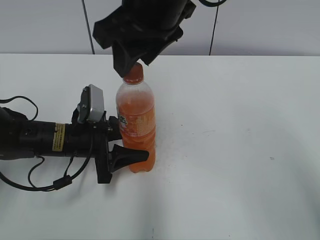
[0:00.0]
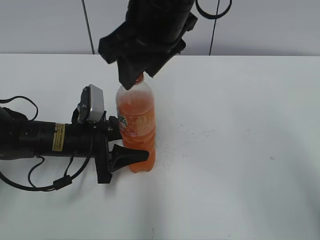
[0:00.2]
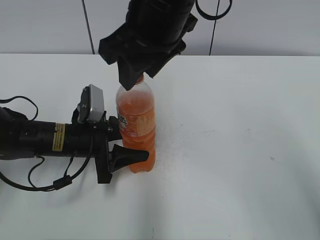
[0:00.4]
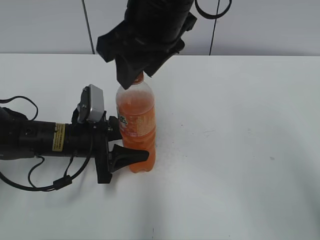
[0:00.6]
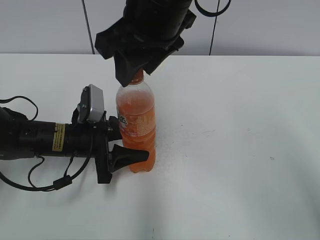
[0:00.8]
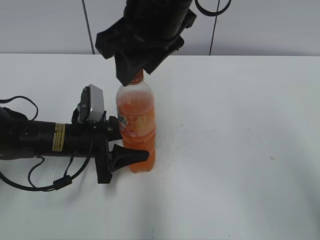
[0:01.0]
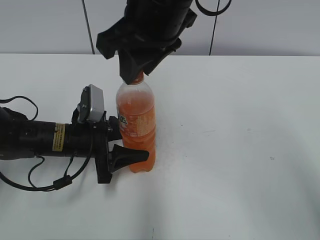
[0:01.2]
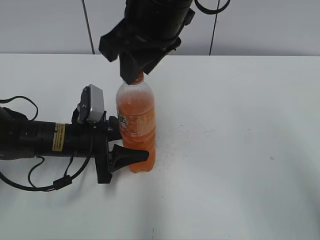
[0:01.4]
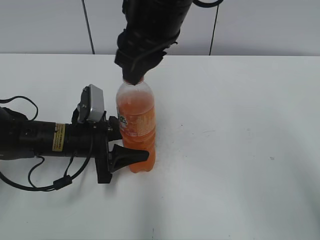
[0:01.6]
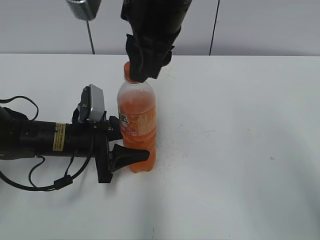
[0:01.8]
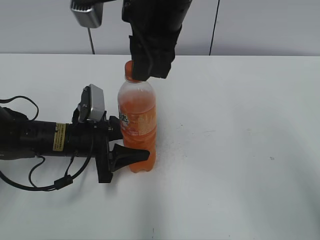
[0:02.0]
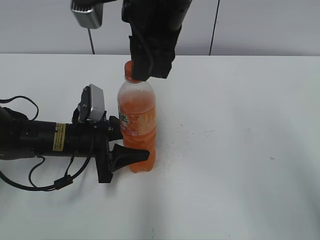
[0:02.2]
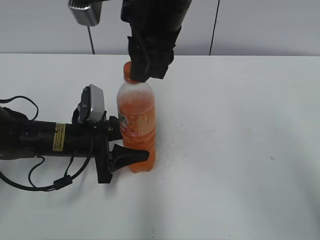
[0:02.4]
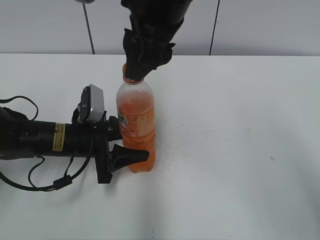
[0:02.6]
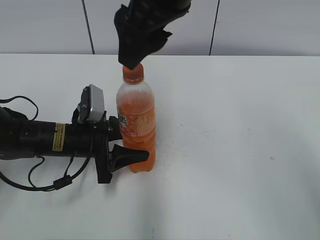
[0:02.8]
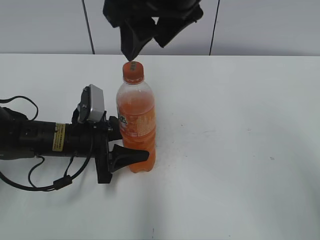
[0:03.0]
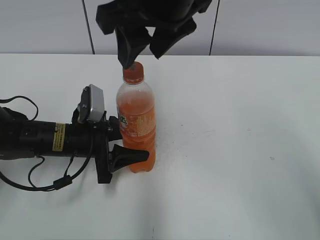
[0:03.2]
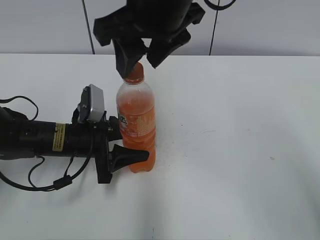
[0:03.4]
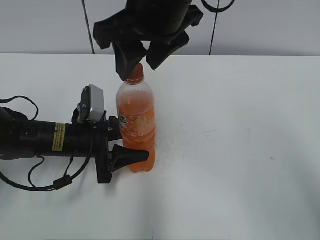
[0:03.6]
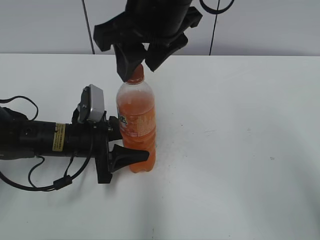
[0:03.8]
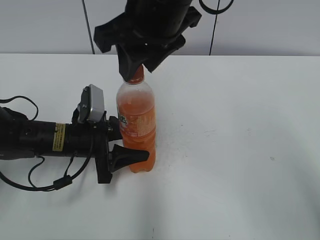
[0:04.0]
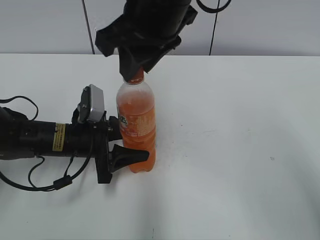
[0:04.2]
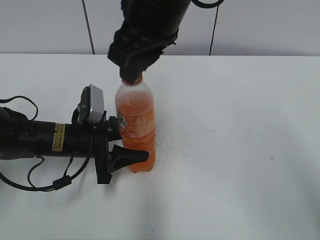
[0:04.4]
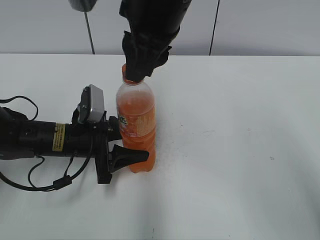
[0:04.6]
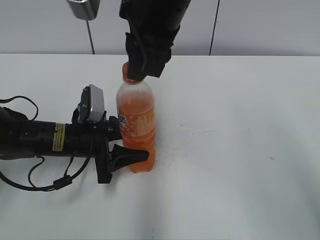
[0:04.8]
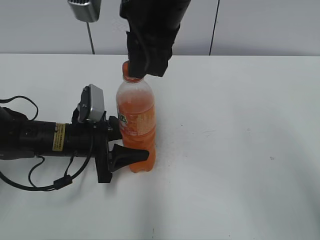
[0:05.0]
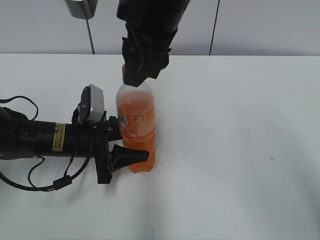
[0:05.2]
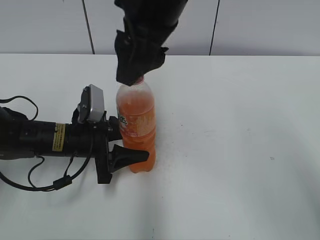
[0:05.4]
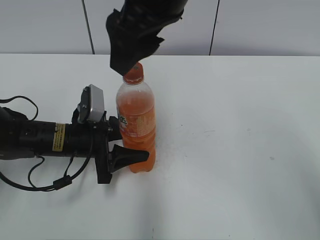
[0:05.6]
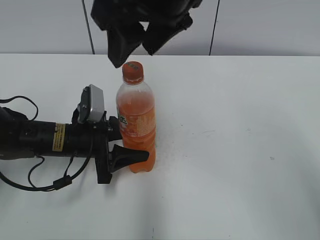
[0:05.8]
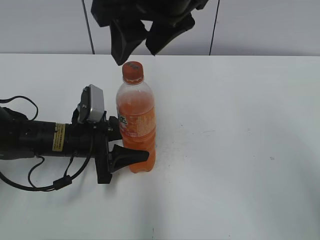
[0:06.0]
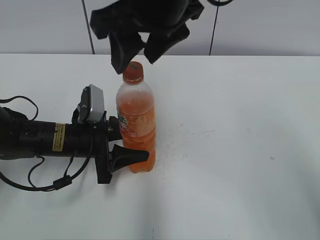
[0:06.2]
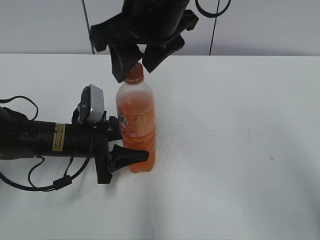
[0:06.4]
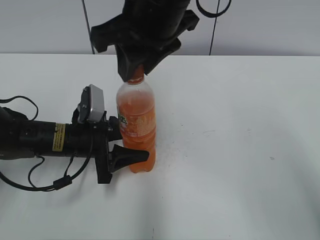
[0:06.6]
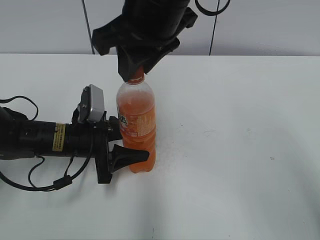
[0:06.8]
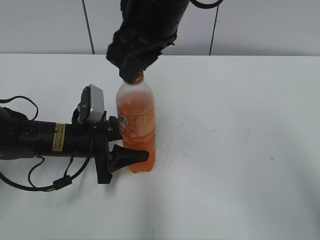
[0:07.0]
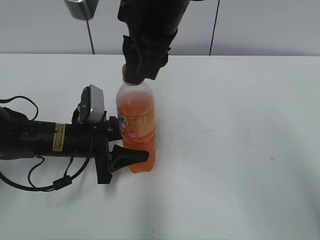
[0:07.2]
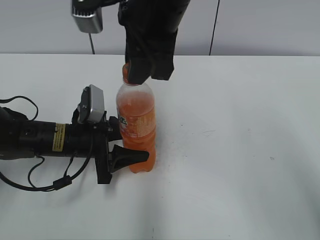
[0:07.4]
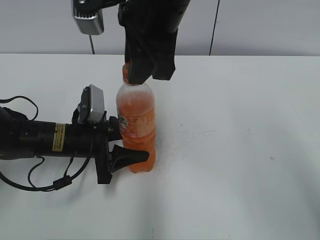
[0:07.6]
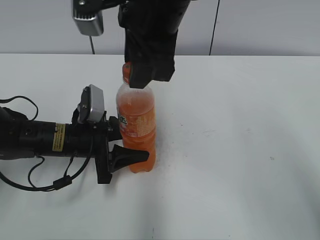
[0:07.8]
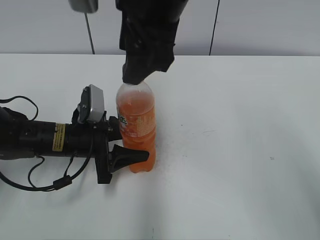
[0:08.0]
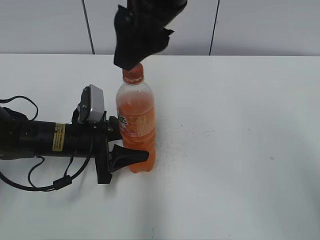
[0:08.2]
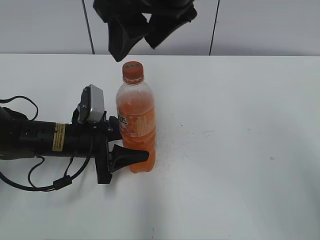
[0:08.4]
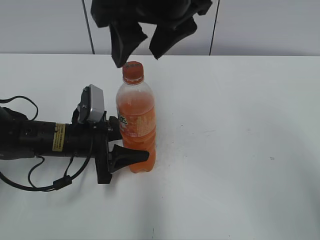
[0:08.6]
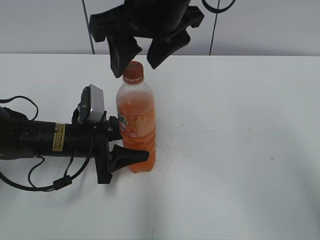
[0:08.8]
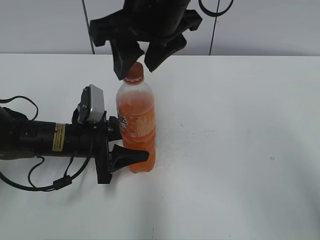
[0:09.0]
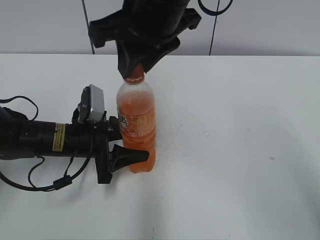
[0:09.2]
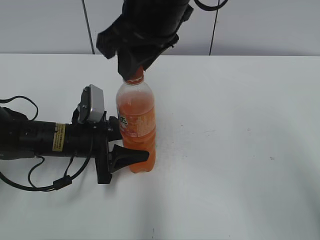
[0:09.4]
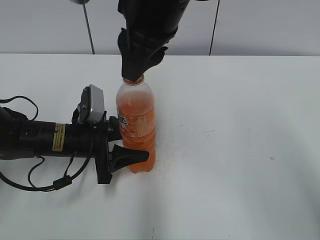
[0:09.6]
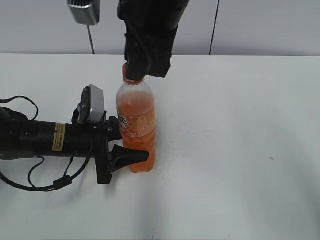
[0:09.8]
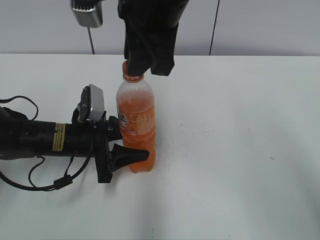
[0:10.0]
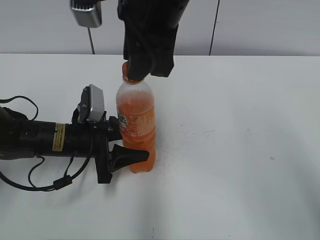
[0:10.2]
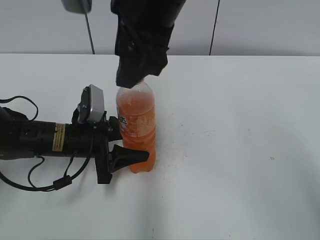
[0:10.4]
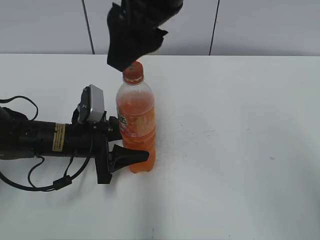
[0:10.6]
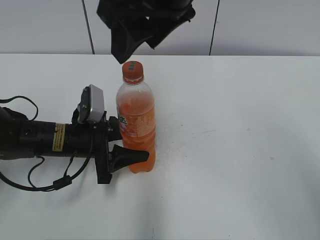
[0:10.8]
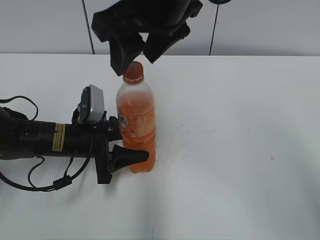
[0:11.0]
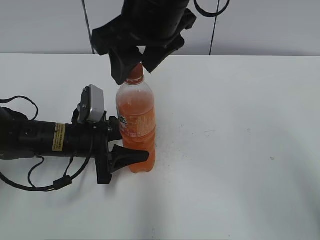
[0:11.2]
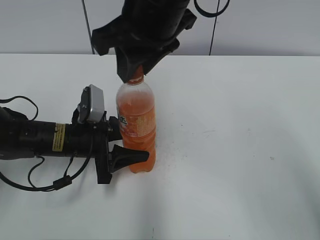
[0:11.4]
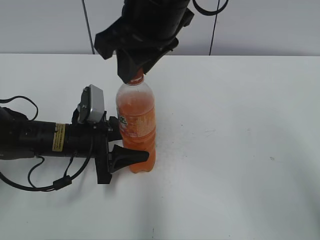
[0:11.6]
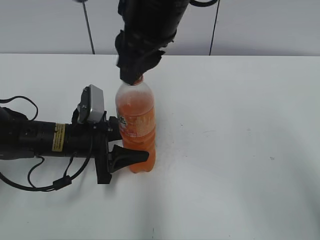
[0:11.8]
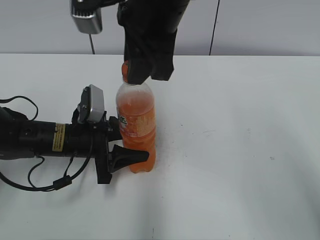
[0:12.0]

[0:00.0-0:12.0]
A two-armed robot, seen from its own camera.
0:00.0 to 0:01.6: The right gripper closes.
0:01.6 to 0:03.0: The right gripper opens its fingers.
0:03.0 to 0:04.4: The right gripper closes up.
0:04.4 to 0:06.0: The right gripper opens.
0:06.0 to 0:07.6: The right gripper closes up.
0:07.6 to 0:09.0: The right gripper opens.
0:09.0 to 0:10.4: The right gripper closes, then reopens.
0:10.4 to 0:12.0: The right gripper closes.

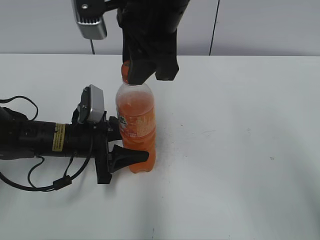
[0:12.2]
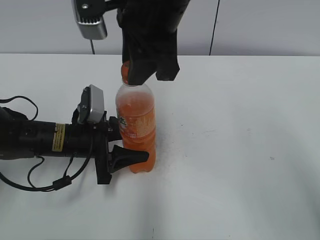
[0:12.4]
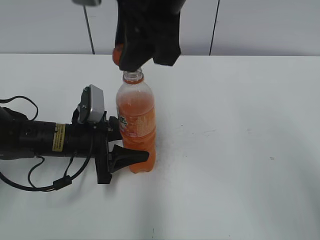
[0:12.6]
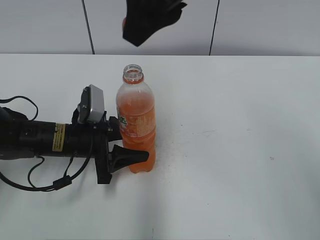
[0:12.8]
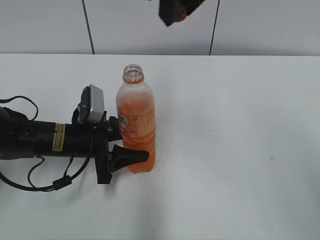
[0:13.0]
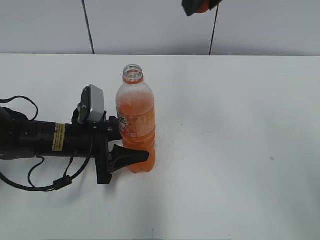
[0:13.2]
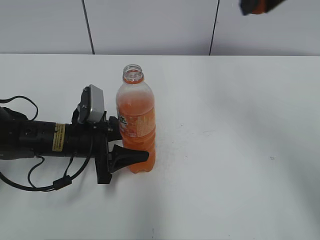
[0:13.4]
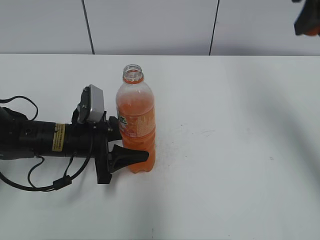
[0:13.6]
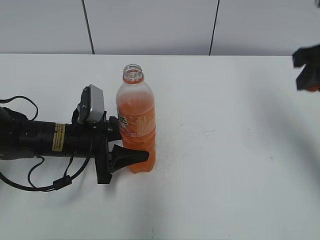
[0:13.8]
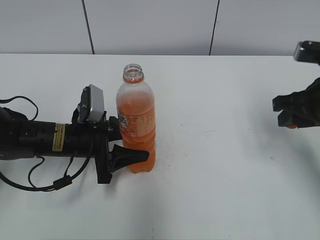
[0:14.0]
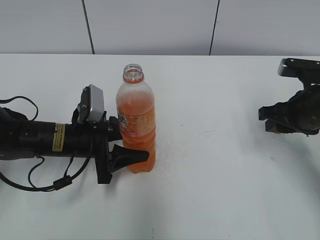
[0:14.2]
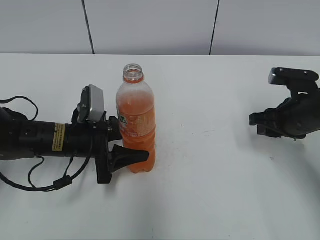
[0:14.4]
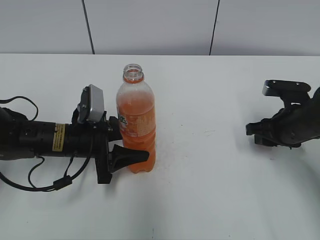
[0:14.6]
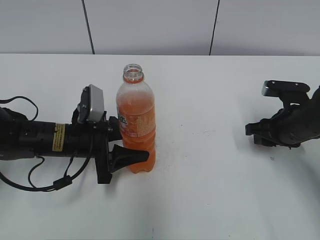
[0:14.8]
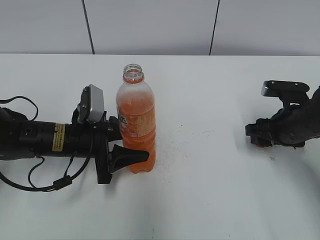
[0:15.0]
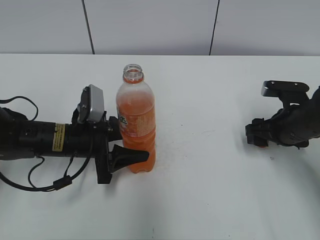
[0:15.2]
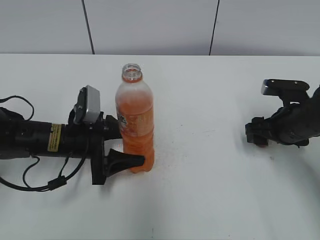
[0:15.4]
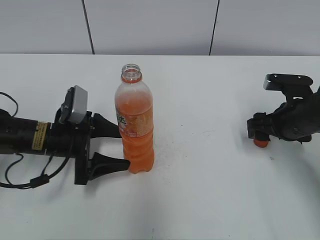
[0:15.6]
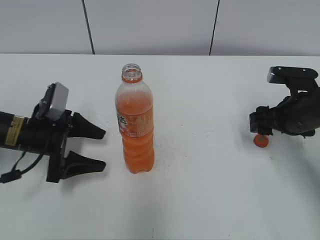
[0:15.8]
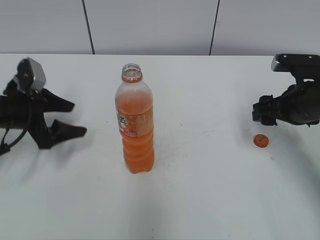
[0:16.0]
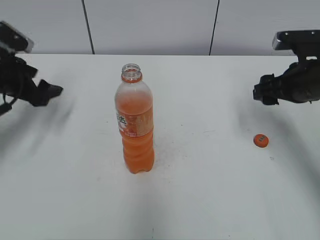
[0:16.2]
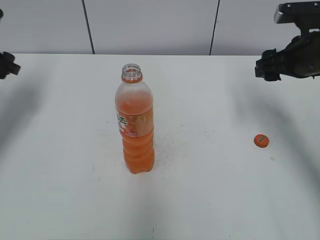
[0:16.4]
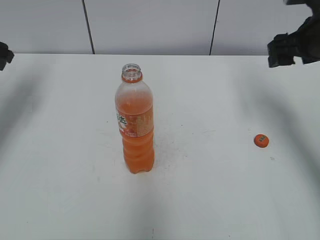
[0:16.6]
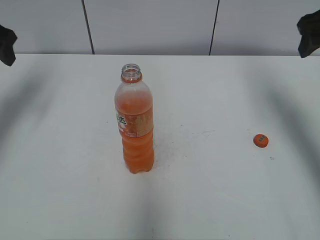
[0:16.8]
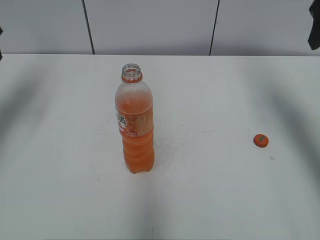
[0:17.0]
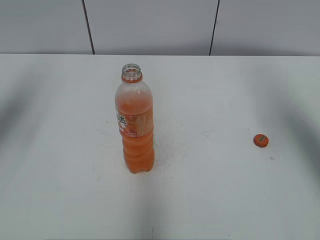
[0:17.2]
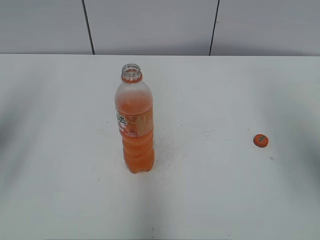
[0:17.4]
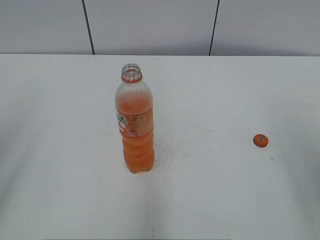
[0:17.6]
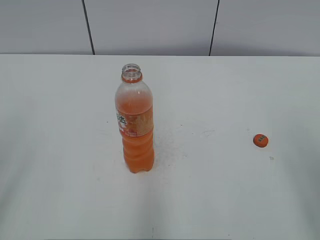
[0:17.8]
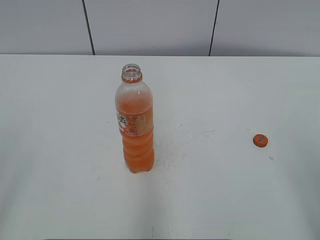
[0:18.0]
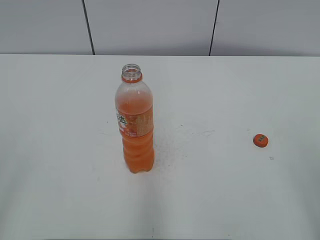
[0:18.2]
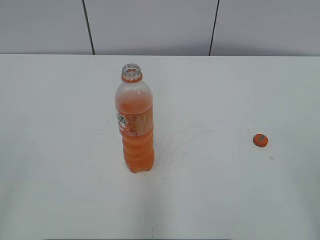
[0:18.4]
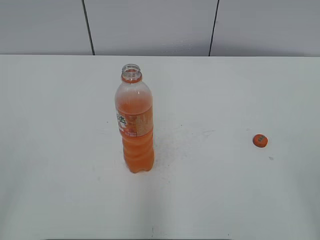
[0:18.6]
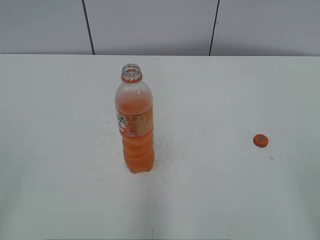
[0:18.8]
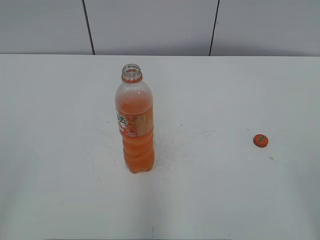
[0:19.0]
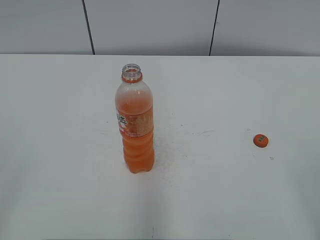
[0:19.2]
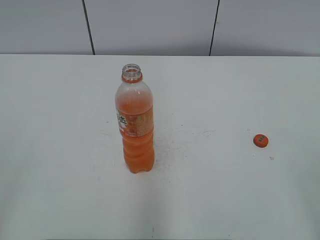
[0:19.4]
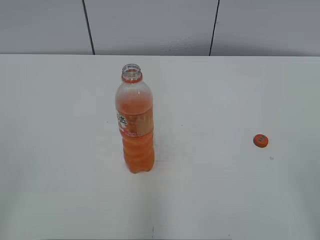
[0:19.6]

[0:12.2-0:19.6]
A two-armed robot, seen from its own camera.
Step, 0:12.8 to 0:15.2: Place the bottle cap on the right.
0:12.2 to 0:13.6: The right gripper heads to the right, covering approximately 20 cm.
0:13.6 to 0:15.2: The right gripper travels downward by roughly 25 cm, and opens up.
0:15.2 to 0:16.6: The left gripper moves to the left, upward and forward, approximately 25 cm, and opens up; the right gripper shifts some 15 cm upward.
0:16.6 to 0:18.2: The grippers both shift backward by about 35 cm.

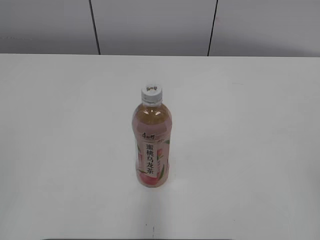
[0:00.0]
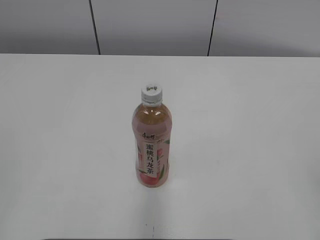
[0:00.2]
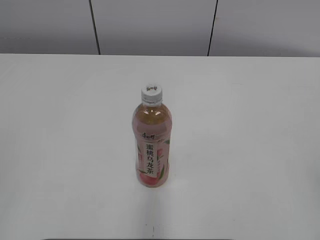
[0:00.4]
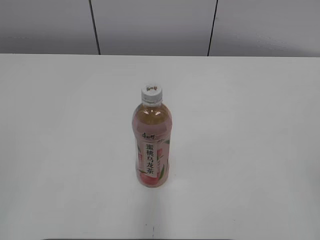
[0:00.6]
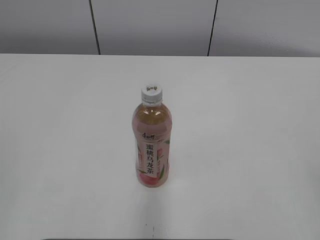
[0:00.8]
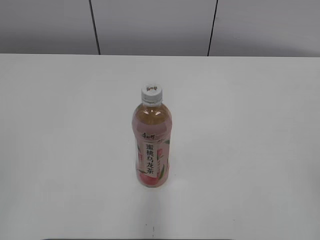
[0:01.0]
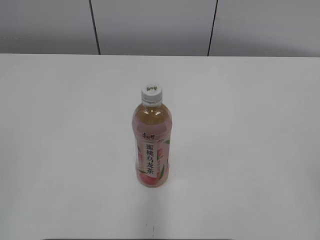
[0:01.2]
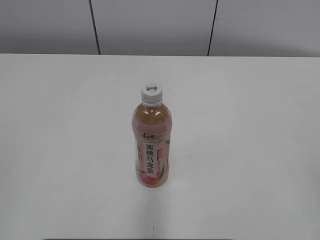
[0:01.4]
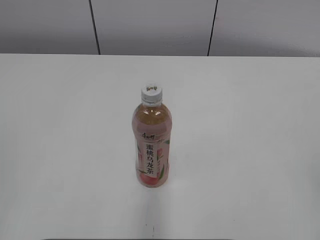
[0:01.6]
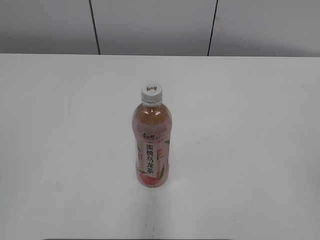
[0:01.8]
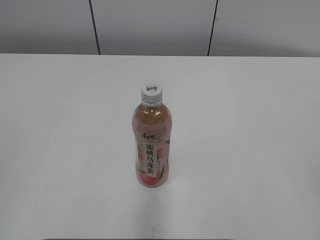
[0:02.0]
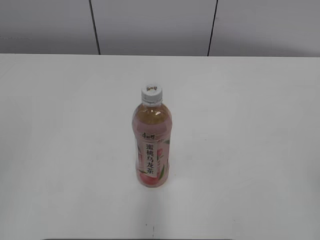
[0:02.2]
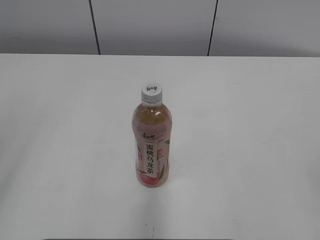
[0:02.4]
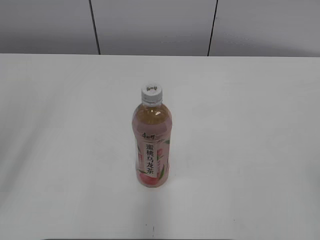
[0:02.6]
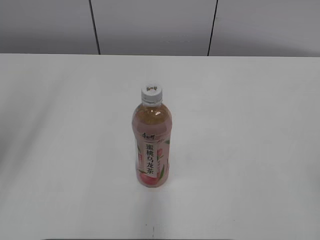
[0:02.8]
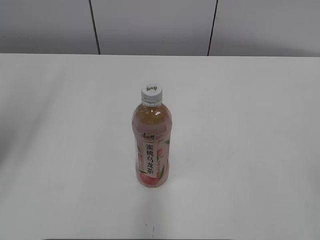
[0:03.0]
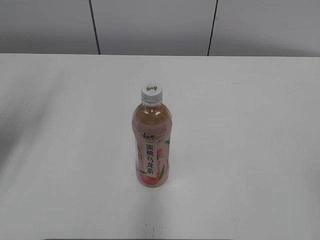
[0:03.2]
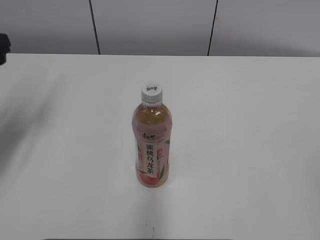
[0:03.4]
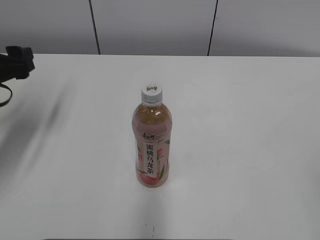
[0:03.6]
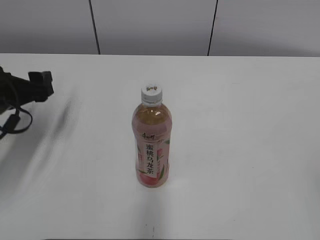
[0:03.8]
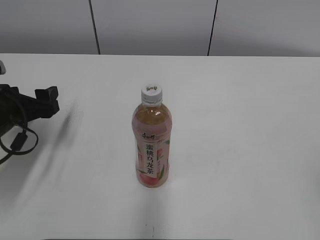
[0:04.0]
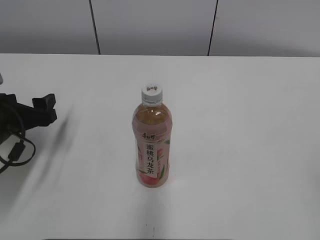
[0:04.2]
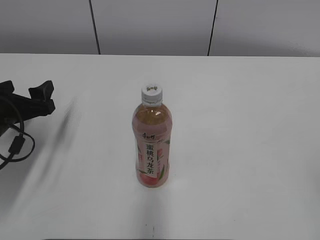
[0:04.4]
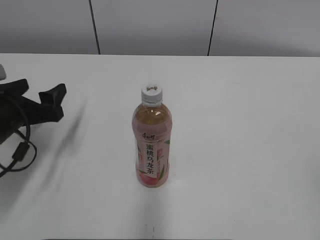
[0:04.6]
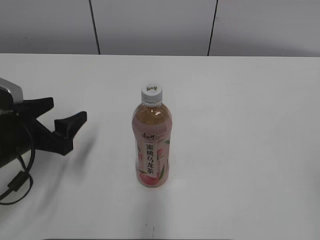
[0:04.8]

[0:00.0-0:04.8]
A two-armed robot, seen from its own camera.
0:01.6 to 0:03.2: The left gripper travels forward by roughly 25 cm, and opens its fingers.
0:03.2 to 0:04.8: The left gripper is displaced downward and to the right by roughly 20 cm.
